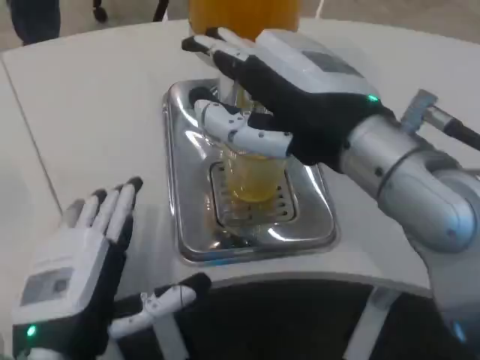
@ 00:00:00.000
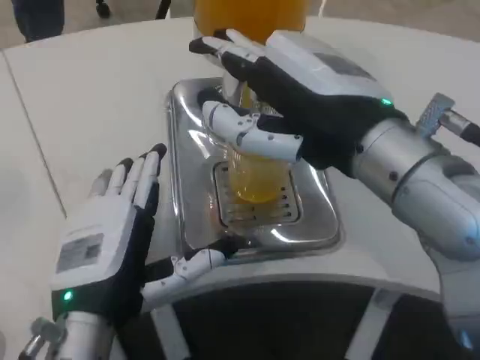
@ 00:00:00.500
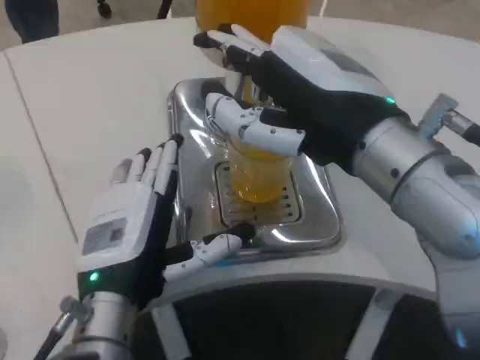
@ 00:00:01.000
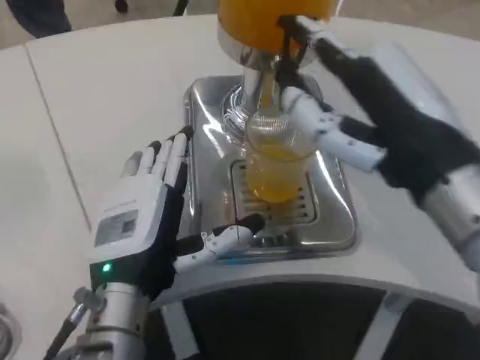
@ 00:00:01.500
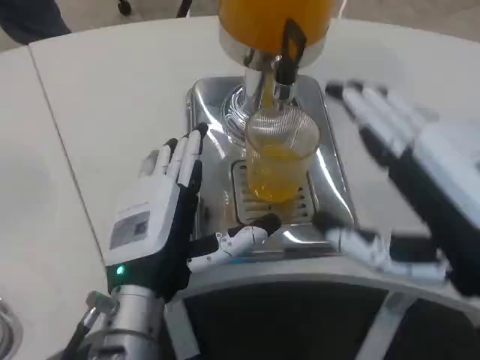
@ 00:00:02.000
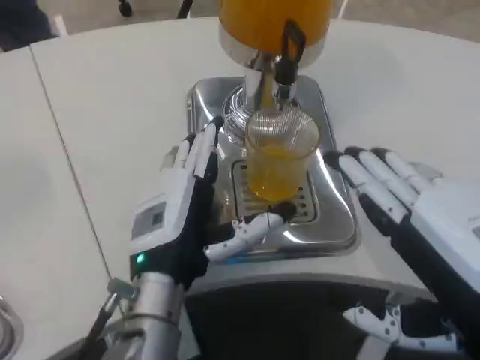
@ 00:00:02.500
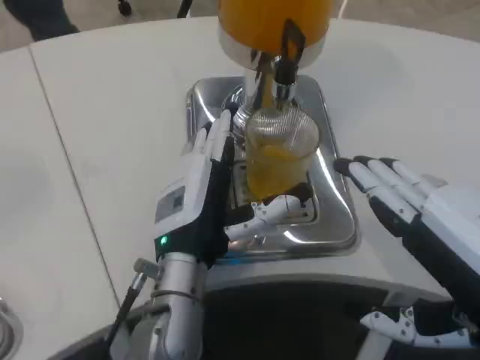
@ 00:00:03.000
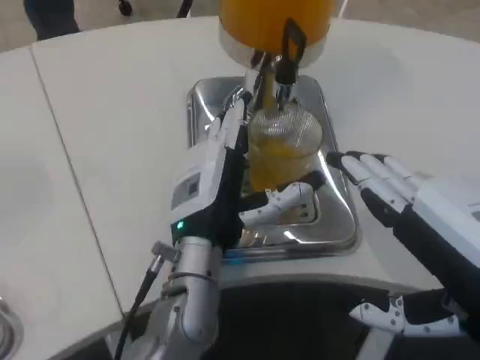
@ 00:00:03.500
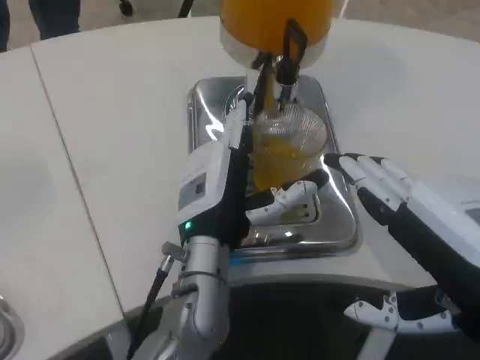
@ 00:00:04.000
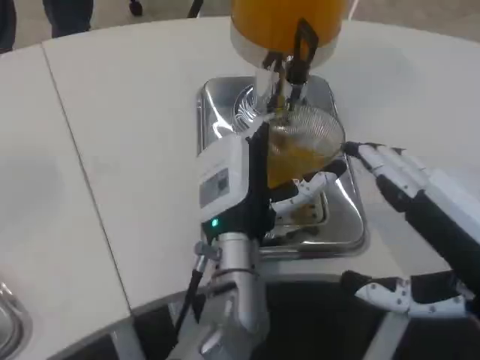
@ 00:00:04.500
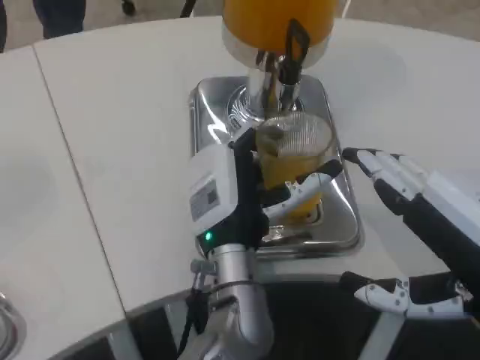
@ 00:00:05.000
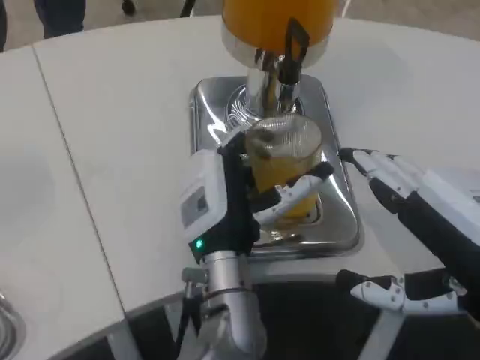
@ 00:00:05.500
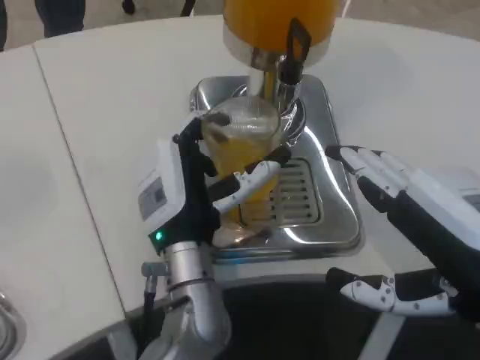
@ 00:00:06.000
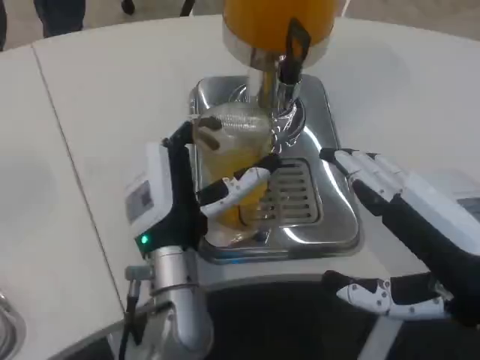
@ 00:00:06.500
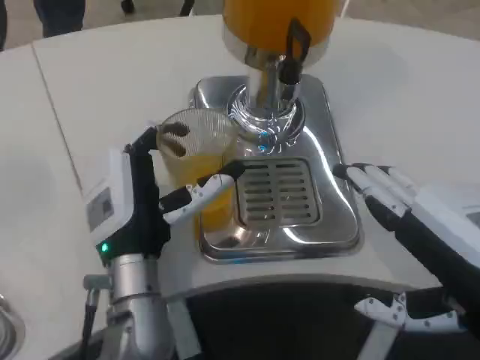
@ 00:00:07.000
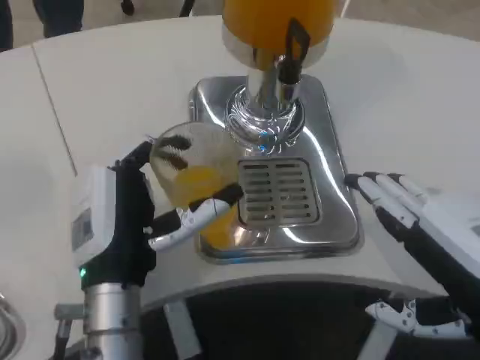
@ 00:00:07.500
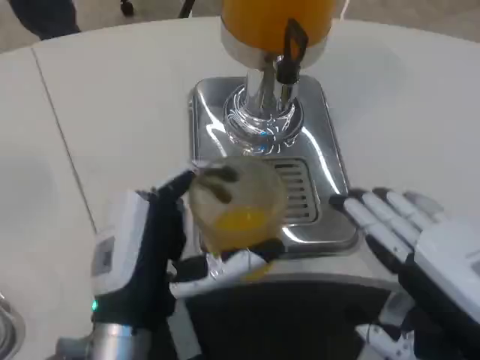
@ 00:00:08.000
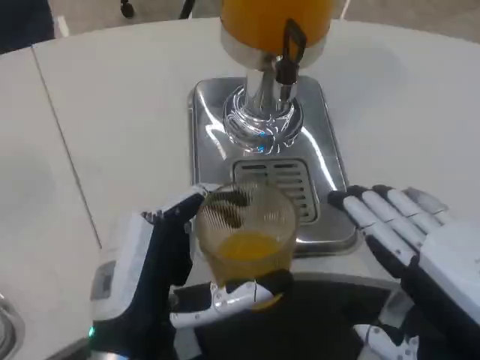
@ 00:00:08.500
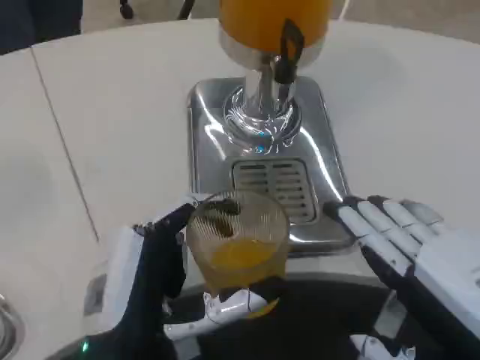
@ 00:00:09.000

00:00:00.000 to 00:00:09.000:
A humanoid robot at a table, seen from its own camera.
Task of the whole recording: Grasp the cup under the faucet to collect the drink, then remove the cup.
00:00:00.000 to 00:00:02.000: The left hand goes approximately 10 cm forward and to the right; the right hand goes about 15 cm backward, to the right and downward.
00:00:02.000 to 00:00:04.500: The left hand moves to the right and forward, approximately 10 cm.
00:00:04.500 to 00:00:07.000: The left hand is displaced to the left by about 10 cm.
00:00:07.000 to 00:00:09.000: The left hand shifts roughly 10 cm backward.

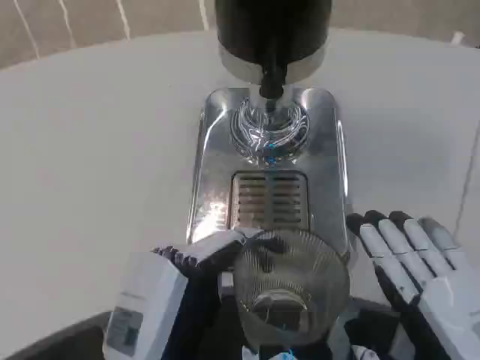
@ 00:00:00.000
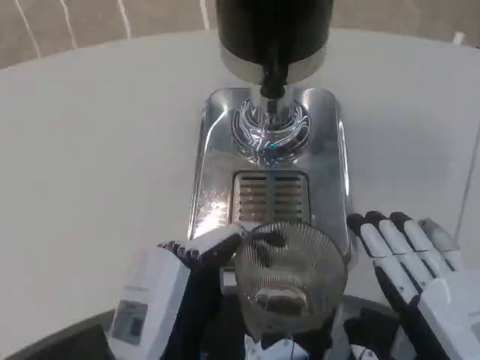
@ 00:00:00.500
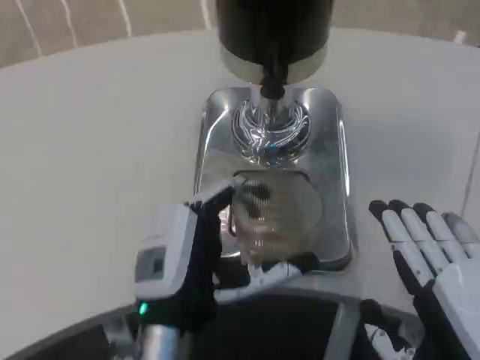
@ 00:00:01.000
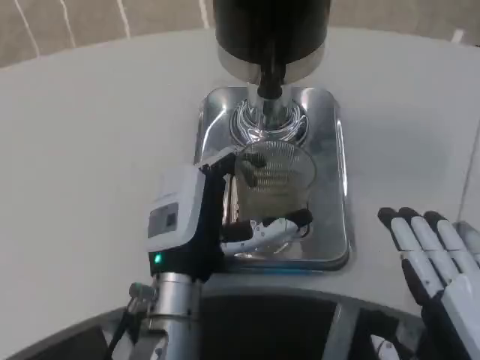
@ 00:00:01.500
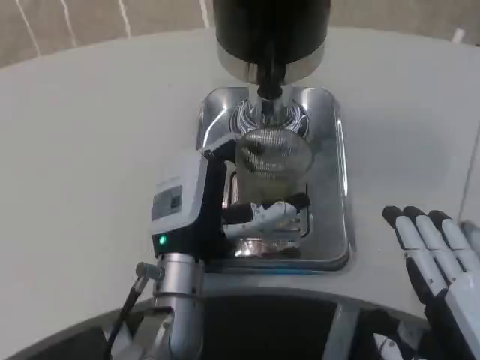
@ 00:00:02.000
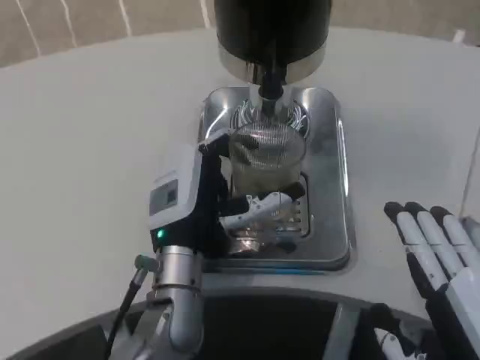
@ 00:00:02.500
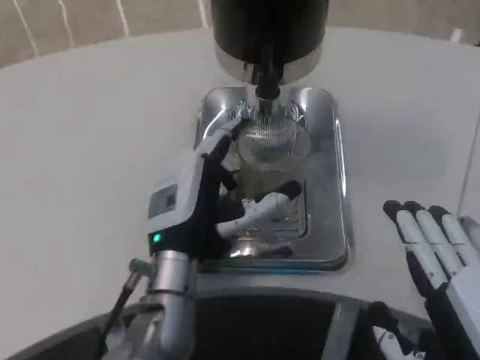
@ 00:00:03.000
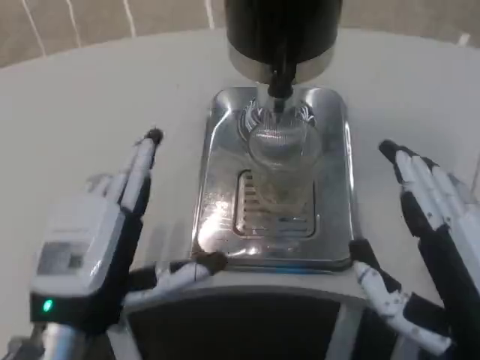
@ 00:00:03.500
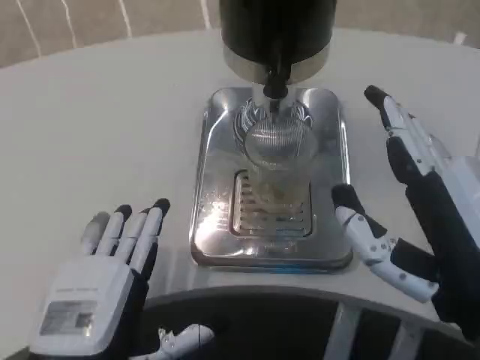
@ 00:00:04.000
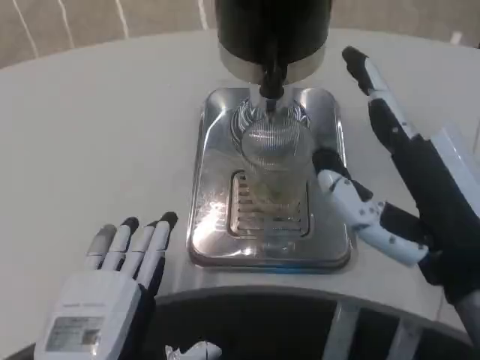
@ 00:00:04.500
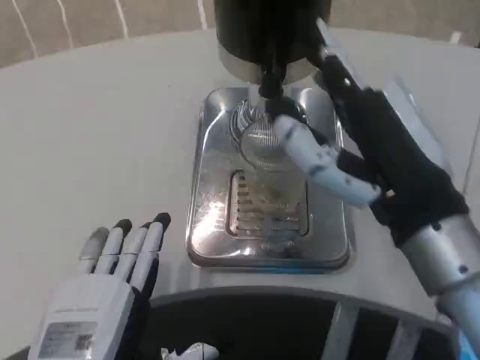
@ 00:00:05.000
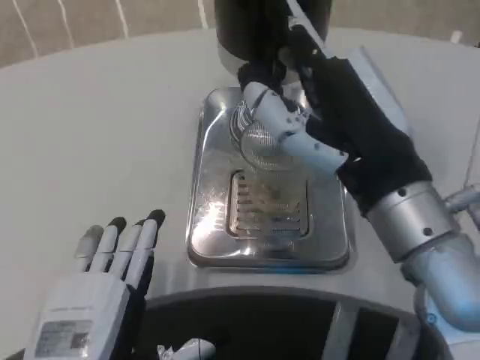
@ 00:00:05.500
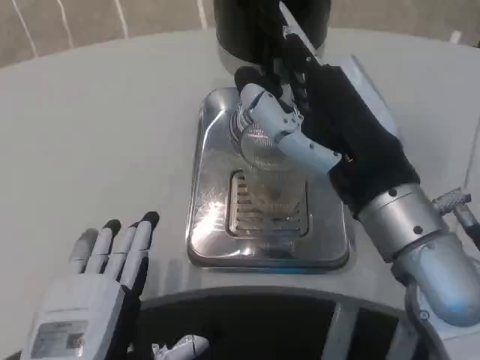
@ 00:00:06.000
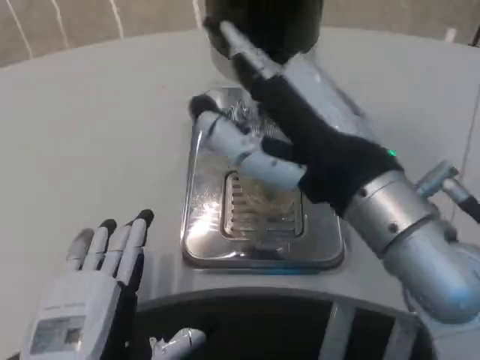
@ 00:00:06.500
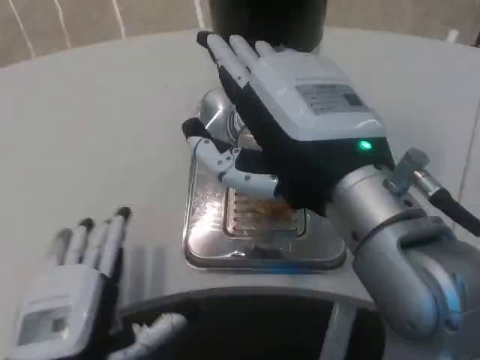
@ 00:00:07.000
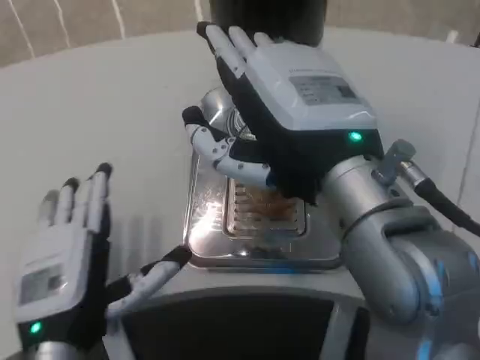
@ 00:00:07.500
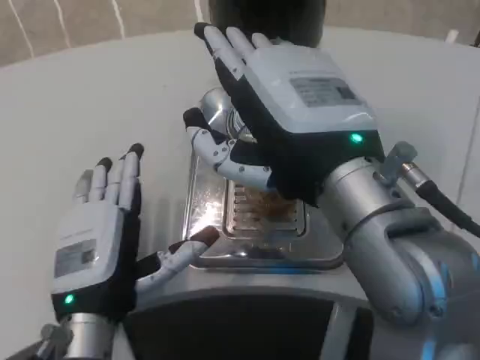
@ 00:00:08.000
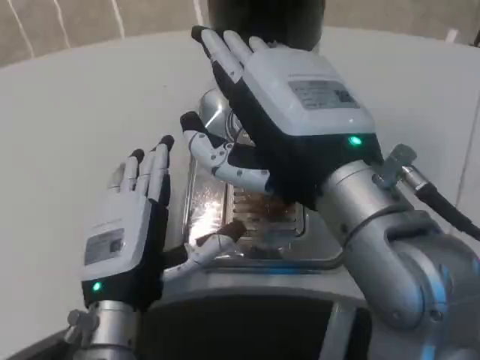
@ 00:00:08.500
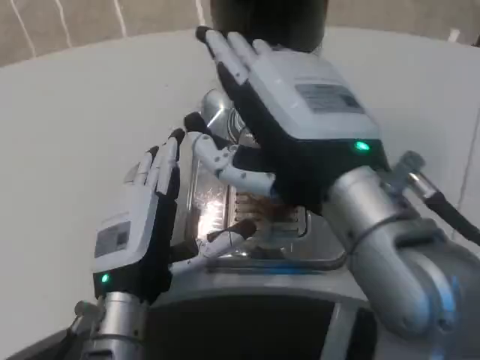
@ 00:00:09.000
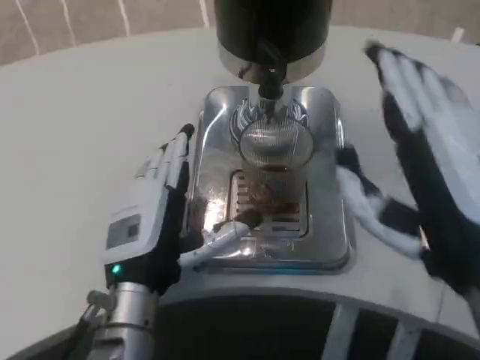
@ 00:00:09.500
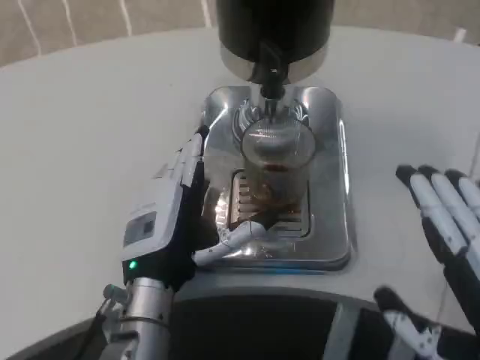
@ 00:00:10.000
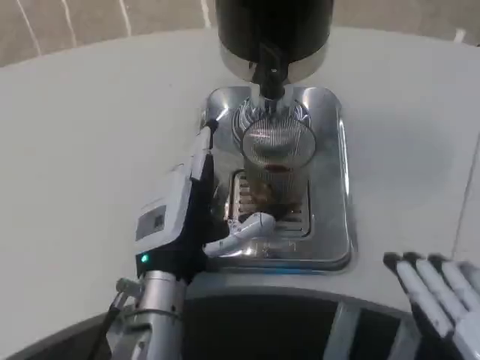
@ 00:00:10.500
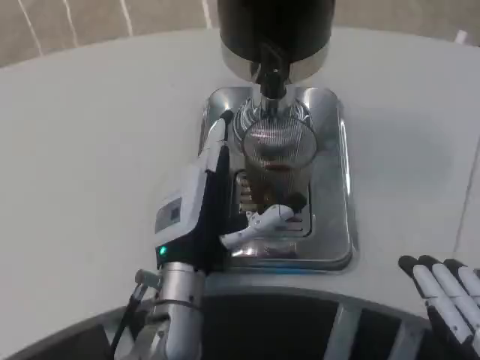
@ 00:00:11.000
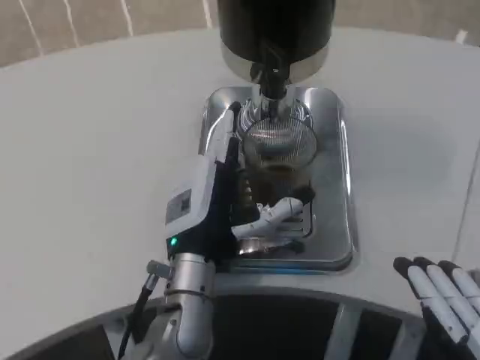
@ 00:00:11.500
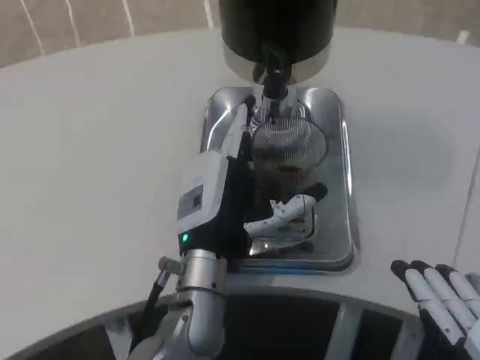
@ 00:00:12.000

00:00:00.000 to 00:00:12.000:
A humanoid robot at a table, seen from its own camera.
Task of the whole recording: Grasp the cup under the faucet to collect the drink, then remove the cup.
00:00:00.000 to 00:00:02.000: The left hand moves forward, approximately 15 cm.
00:00:02.000 to 00:00:04.000: The right hand changes place by some 5 cm. The left hand travels backward and to the left by approximately 15 cm.
00:00:04.000 to 00:00:06.000: The right hand goes about 10 cm forward.
00:00:06.000 to 00:00:08.000: The right hand ends up some 5 cm from where it was, while the left hand travels forward by some 10 cm.
00:00:08.000 to 00:00:10.000: The right hand goes roughly 20 cm to the right, backward and downward. Meanwhile the left hand shifts by roughly 5 cm.
00:00:10.000 to 00:00:12.000: The left hand is displaced to the right by some 5 cm.

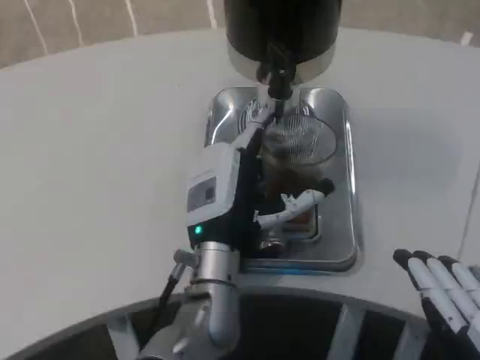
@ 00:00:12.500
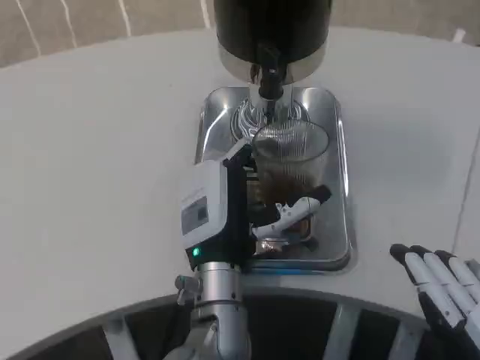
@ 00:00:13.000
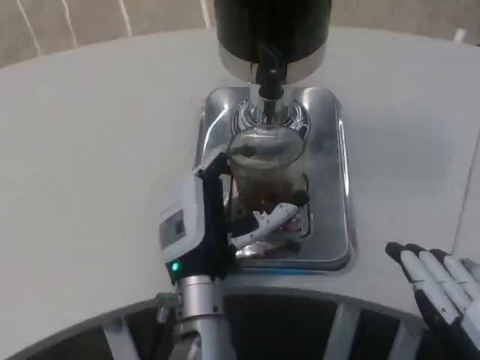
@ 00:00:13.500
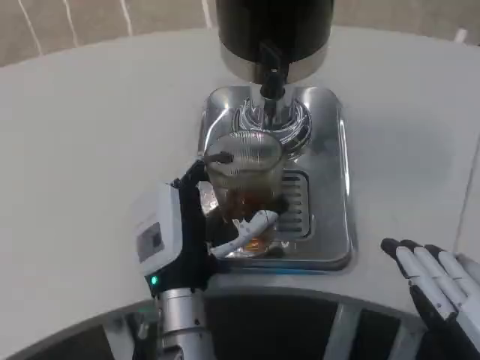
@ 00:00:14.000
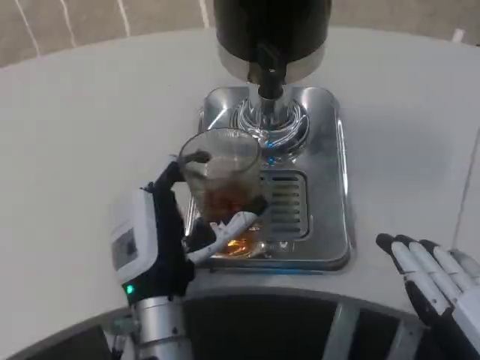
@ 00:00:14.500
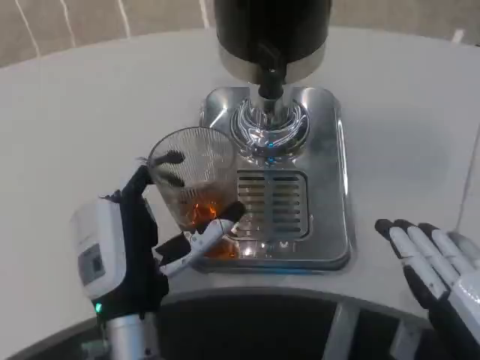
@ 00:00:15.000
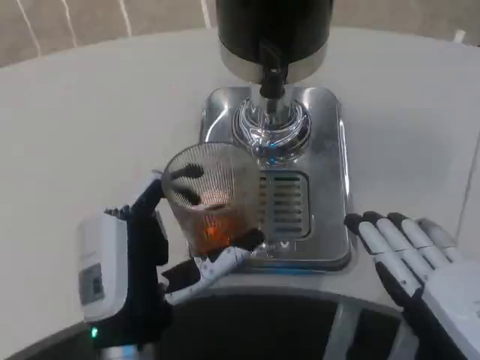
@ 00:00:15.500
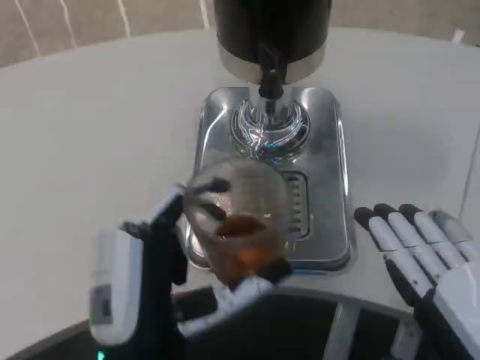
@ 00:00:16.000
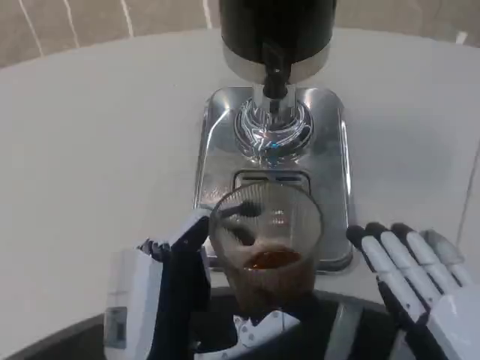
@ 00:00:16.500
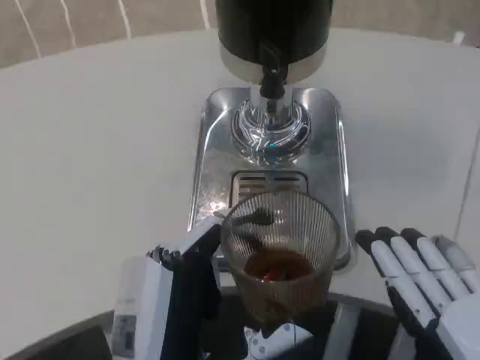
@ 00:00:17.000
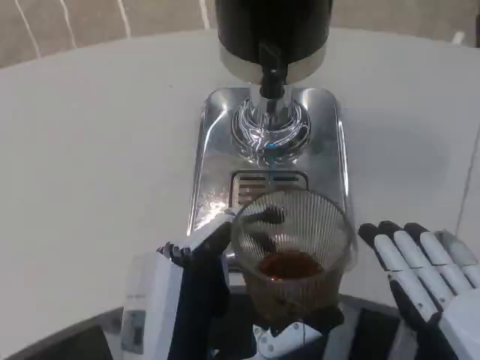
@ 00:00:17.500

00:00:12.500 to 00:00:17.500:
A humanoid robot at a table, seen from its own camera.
Task of the whole recording: Grasp the cup under the faucet to collect the drink, then remove the cup.
00:00:12.500 to 00:00:15.000: The left hand travels backward and to the left by about 10 cm.
00:00:15.000 to 00:00:17.500: The left hand shifts roughly 10 cm backward.
